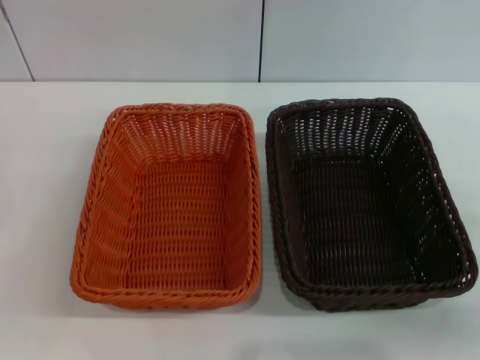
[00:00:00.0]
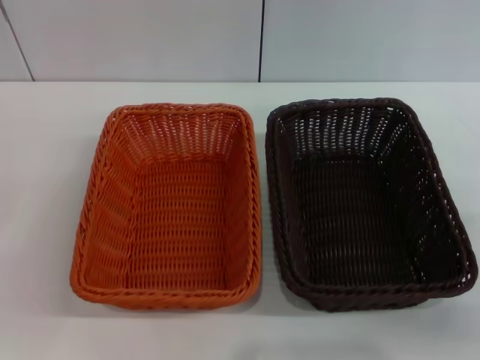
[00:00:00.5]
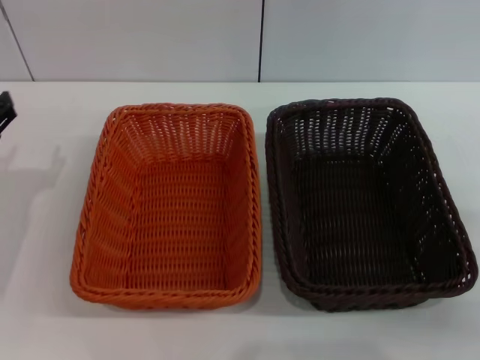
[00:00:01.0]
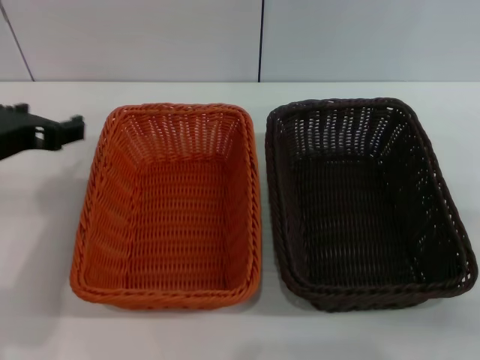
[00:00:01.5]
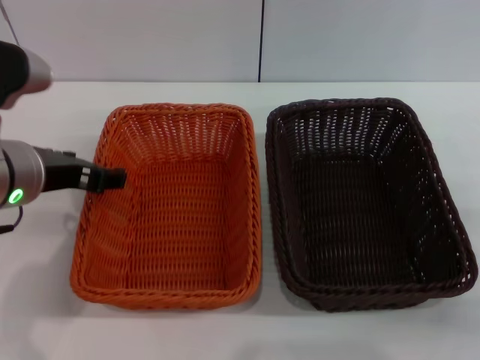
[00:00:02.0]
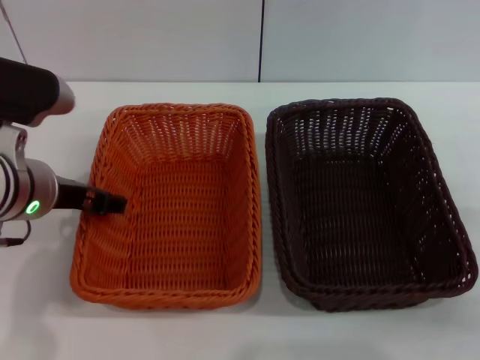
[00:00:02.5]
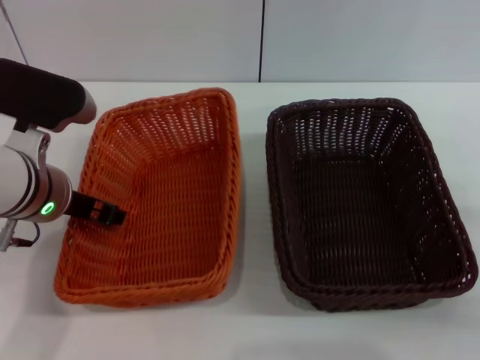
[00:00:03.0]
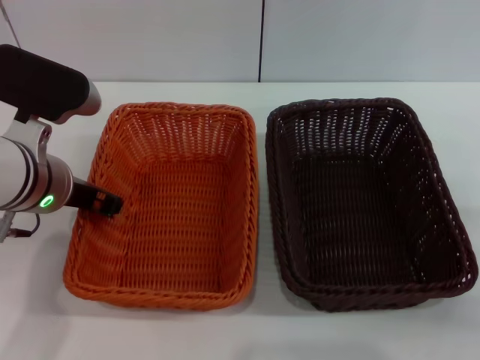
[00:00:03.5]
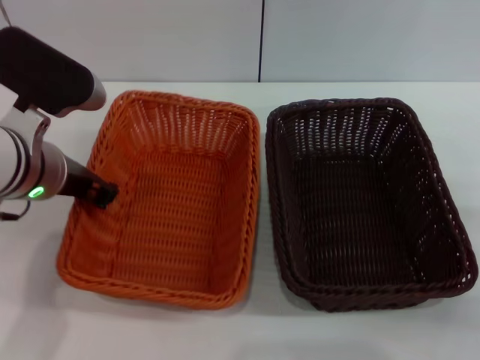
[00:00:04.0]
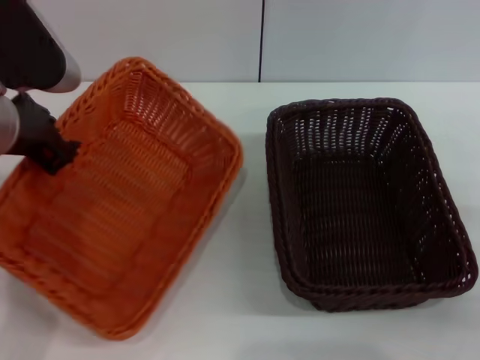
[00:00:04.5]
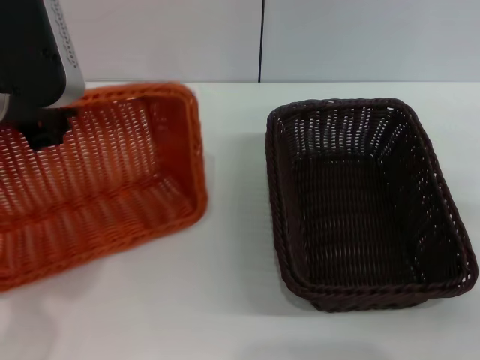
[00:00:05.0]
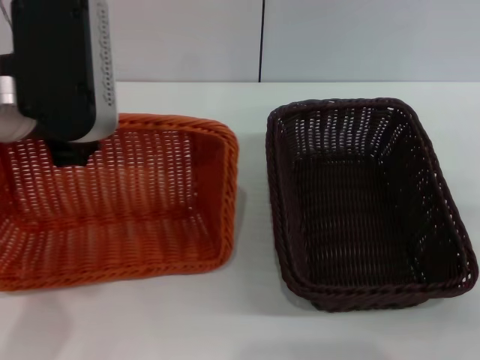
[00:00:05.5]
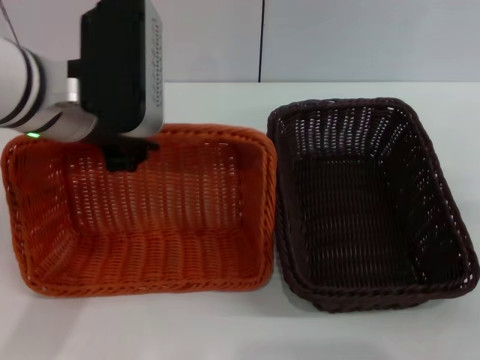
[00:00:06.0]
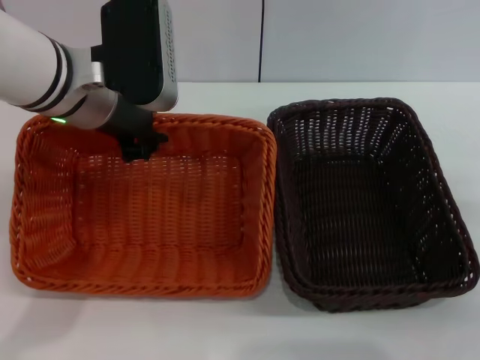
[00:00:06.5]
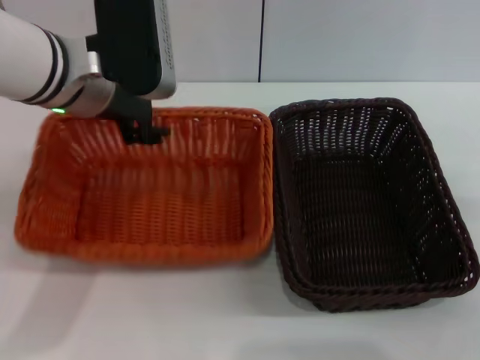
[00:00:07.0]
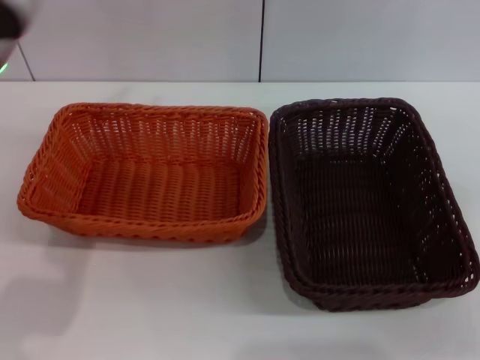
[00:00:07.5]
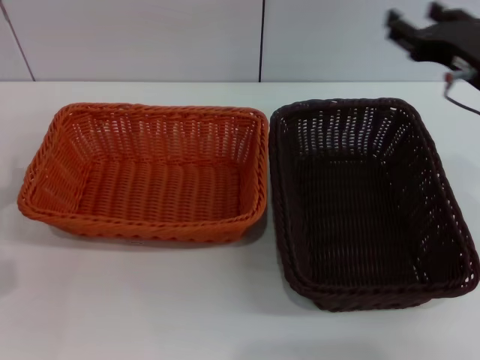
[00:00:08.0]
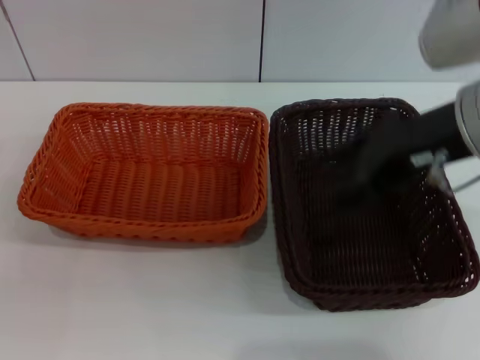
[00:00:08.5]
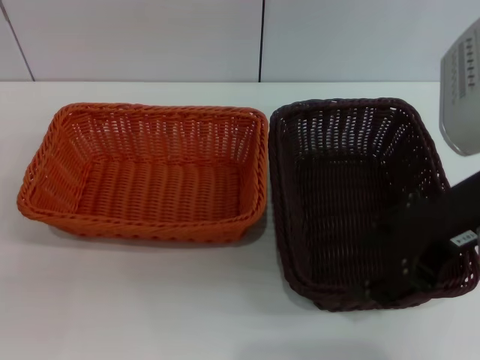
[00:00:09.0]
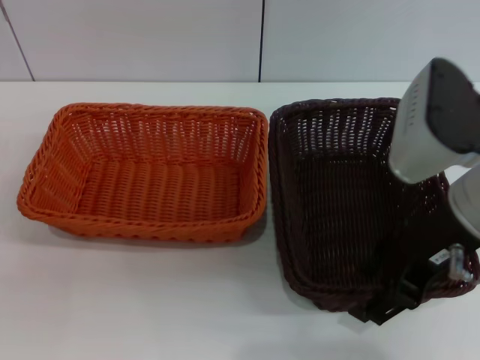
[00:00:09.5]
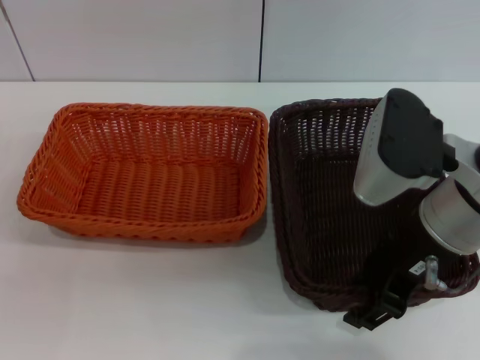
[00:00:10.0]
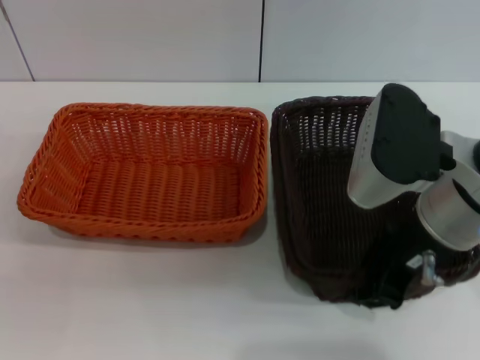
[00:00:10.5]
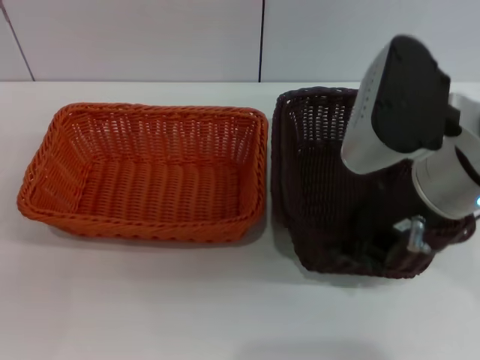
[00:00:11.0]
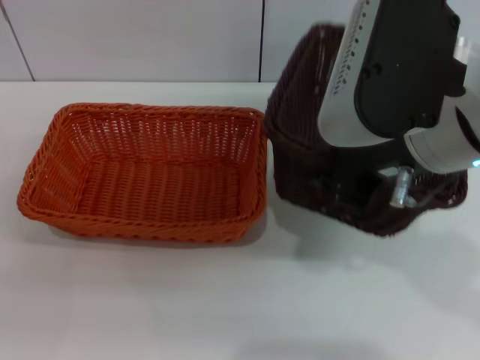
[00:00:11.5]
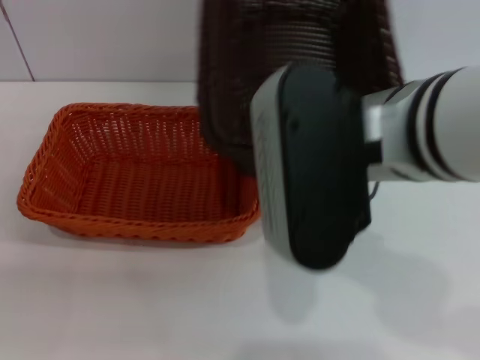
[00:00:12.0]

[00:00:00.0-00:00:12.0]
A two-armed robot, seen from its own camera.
Step, 00:00:00.0 to 00:00:04.5: Pick up the light basket with the left gripper.
Step, 00:00:05.0 to 00:00:07.0: Place the light basket in the center of view with the left gripper.
Step, 00:00:07.5 to 00:00:11.0: Pick up the dark basket with the right gripper.
00:00:00.0 to 00:00:02.0: The left gripper travels upward, to the right and forward by some 20 cm.
00:00:02.0 to 00:00:04.0: The left gripper closes its fingers.
00:00:04.0 to 00:00:06.0: The left gripper moves upward, roughly 5 cm.
00:00:06.0 to 00:00:08.0: The left gripper heads to the left, downward and backward, covering roughly 25 cm, and opens up. The right gripper moves upward, forward and to the left, some 20 cm.
00:00:08.0 to 00:00:10.0: The right gripper moves to the left and backward, roughly 10 cm.
00:00:10.0 to 00:00:12.0: The right gripper shifts about 10 cm to the left and upward, and closes.

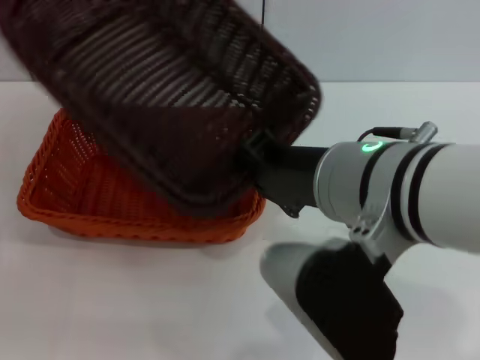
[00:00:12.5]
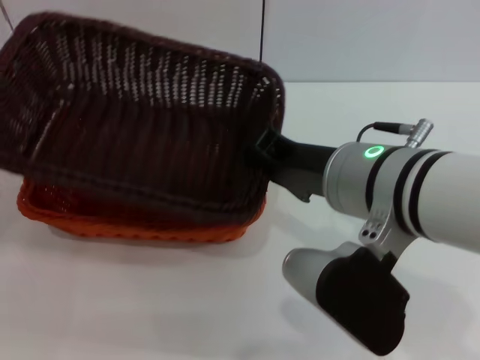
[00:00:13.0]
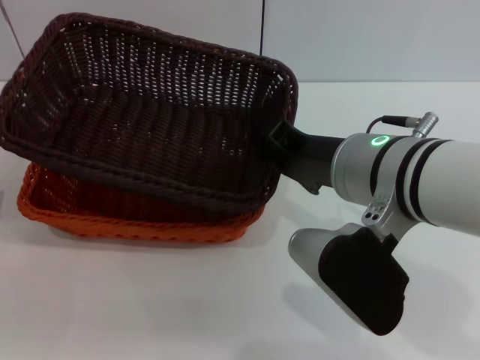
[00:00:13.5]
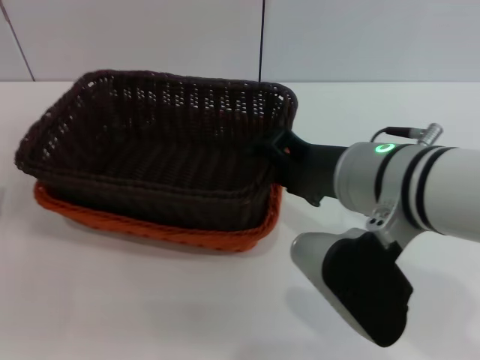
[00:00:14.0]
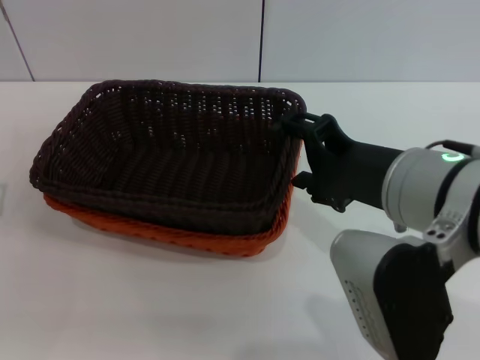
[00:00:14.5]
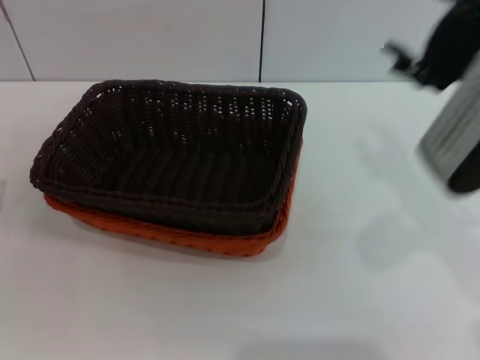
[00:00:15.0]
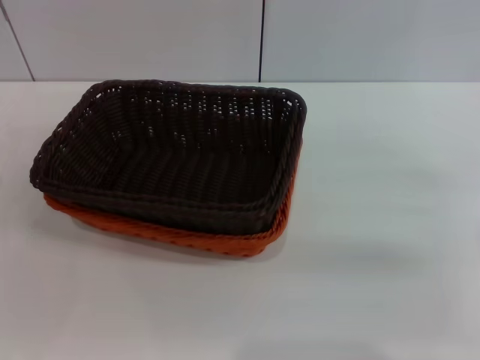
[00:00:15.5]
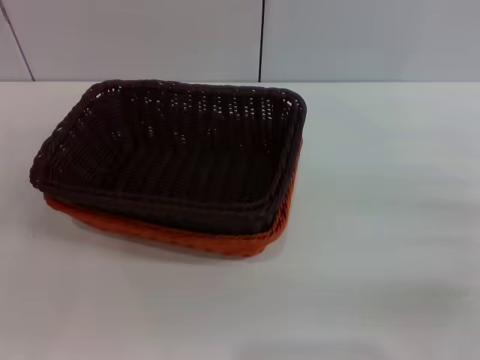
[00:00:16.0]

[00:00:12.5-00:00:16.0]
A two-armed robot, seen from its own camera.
Step, 00:00:12.5 to 00:00:14.0: Place the dark basket on the light basket with the right gripper.
00:00:12.5 to 00:00:14.5: The right gripper ends up roughly 5 cm from where it was, and opens up.
00:00:14.5 to 00:00:16.0: The right gripper moves to the right and downward, roughly 25 cm.
